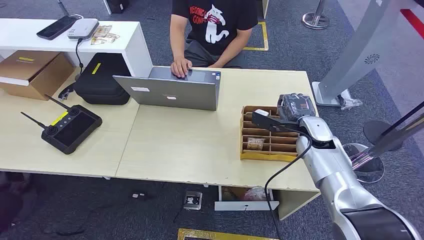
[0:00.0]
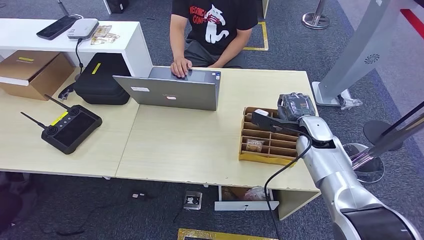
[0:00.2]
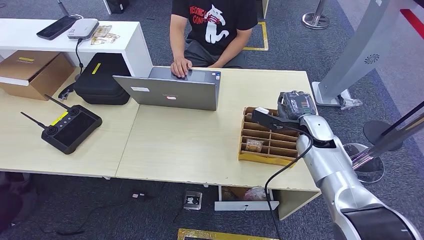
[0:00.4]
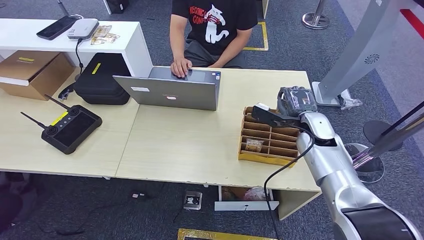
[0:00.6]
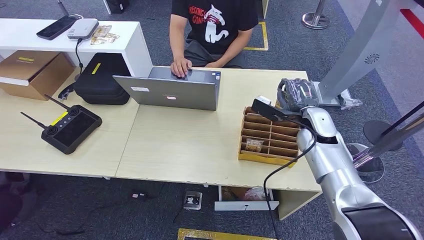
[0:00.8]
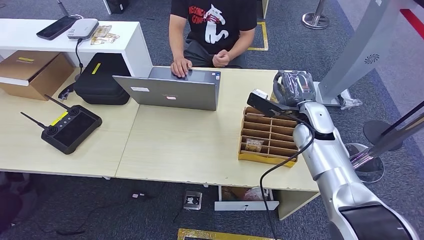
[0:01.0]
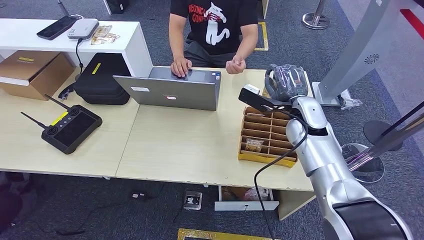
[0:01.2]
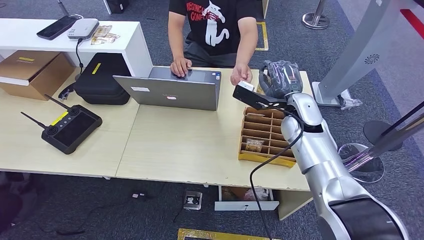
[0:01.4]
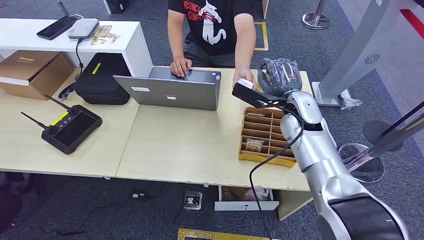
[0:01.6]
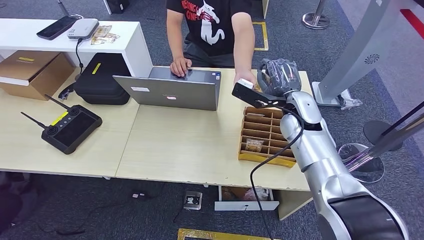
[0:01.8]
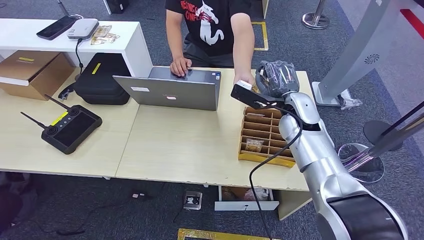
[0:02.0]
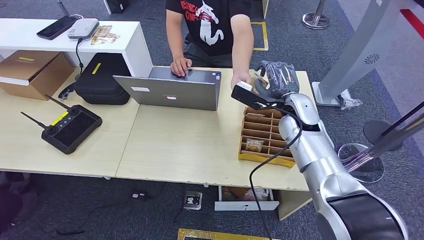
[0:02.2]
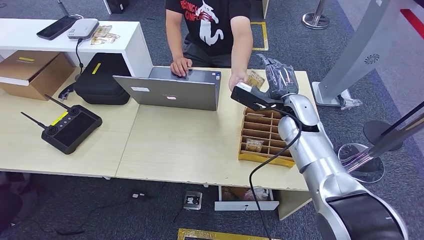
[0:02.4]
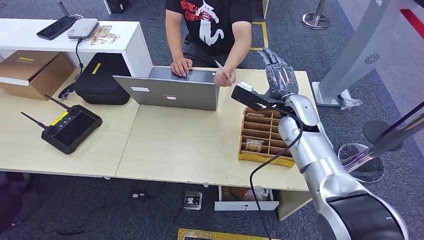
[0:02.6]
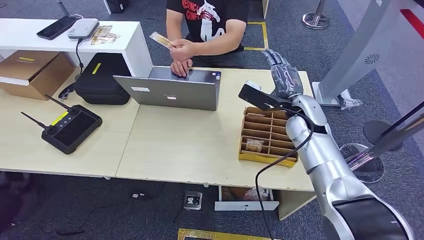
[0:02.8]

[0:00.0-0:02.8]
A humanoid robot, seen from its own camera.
Step, 0:00.0 to 0:01.0: Pick up the key card from the card box.
Step, 0:01.2 to 0:02.6: Hand the key card to the target.
0:01.4 to 0:02.8: The hands make only small movements.
